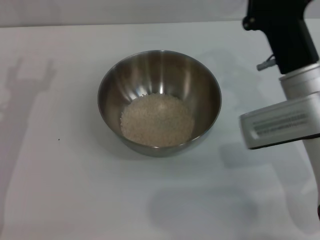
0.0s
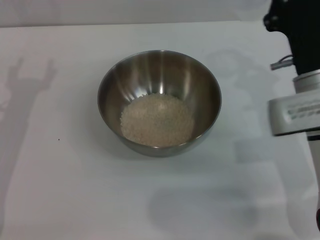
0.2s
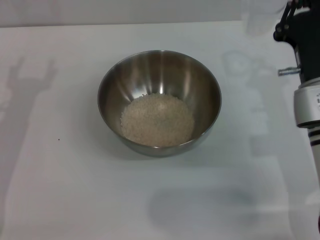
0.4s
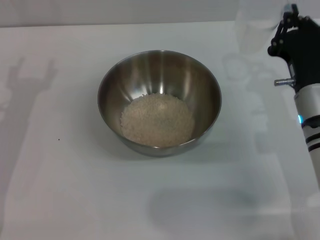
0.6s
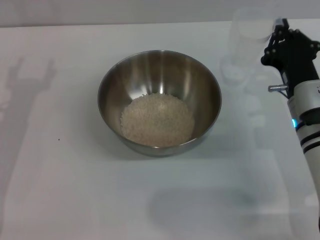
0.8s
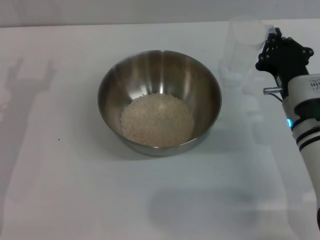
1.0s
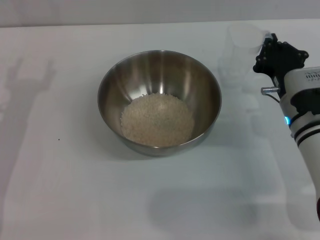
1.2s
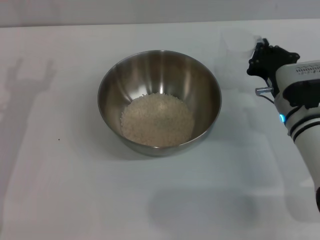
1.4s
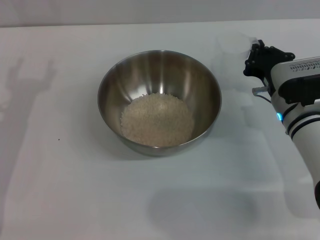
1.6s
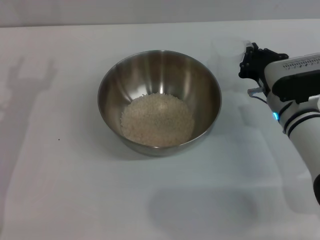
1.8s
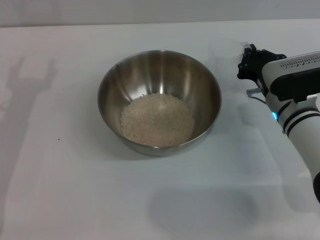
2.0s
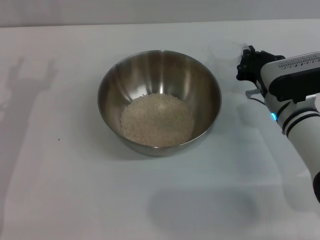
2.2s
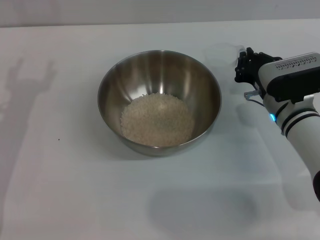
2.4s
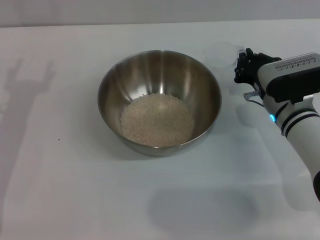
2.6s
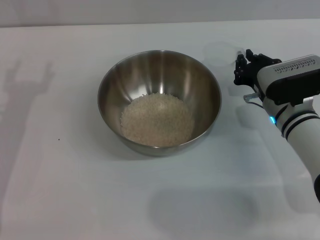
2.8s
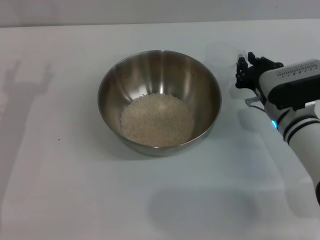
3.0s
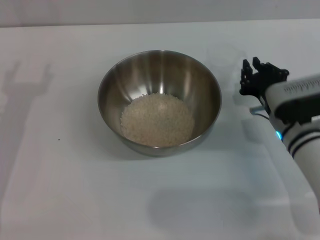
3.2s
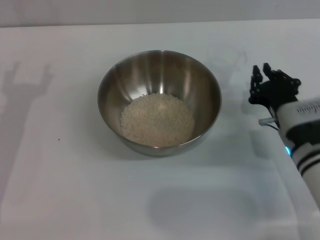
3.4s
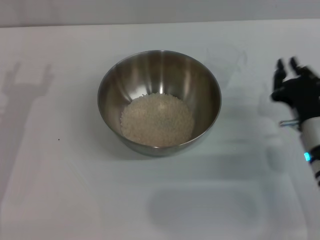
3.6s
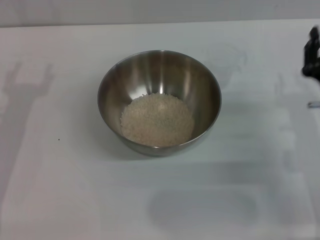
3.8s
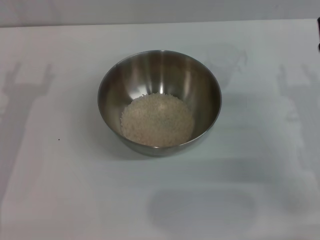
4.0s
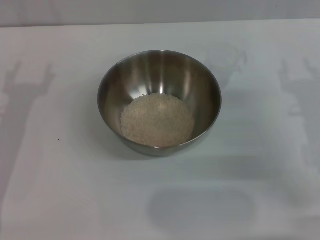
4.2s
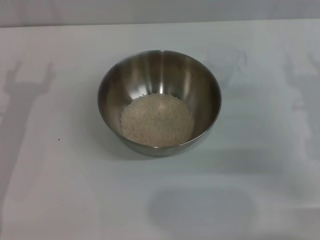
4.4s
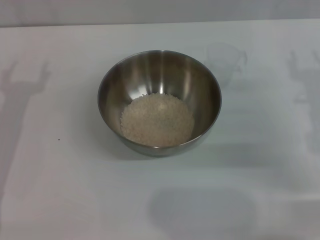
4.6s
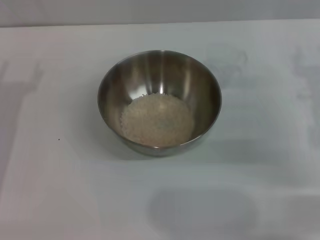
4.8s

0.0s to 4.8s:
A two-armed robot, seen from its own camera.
Task of the whole recording: Place the bowl in the middle of the table with one hand and pour the rice from the grain cup into it with the other hand.
Step, 0.0s to 3.4s: Place the cup on the table with the right gripper.
0.0s to 1.6s: The right gripper goes roughly 5 cm downward.
1.6s to 3.2s: The grippers make only small movements.
3.2s to 4.8s: The right gripper is displaced to the right and upward by about 10 cm, and opens up.
